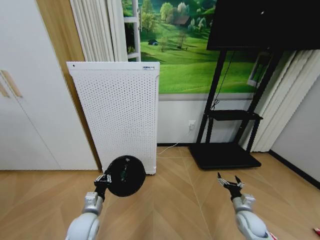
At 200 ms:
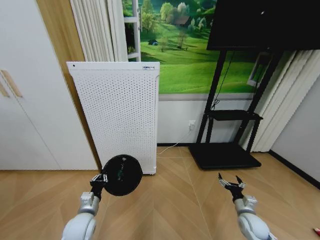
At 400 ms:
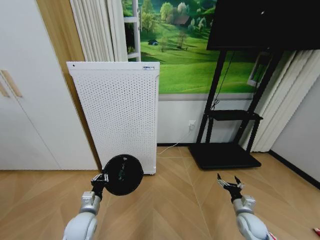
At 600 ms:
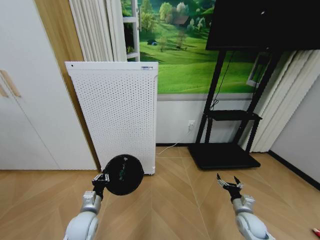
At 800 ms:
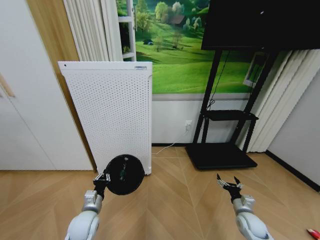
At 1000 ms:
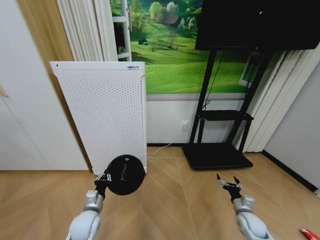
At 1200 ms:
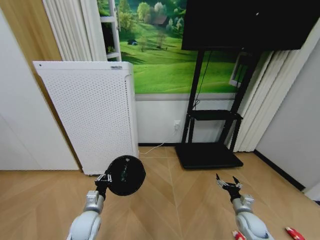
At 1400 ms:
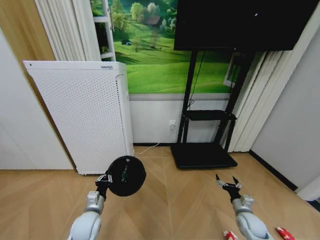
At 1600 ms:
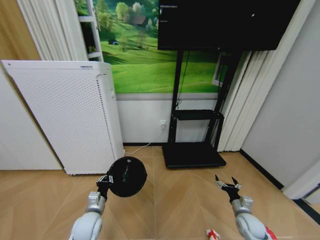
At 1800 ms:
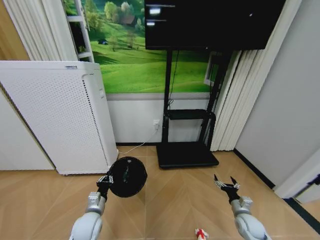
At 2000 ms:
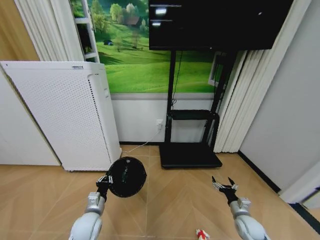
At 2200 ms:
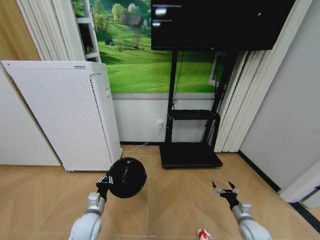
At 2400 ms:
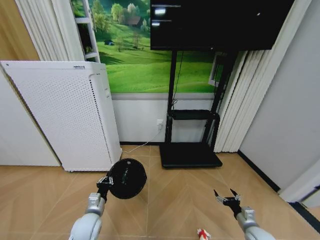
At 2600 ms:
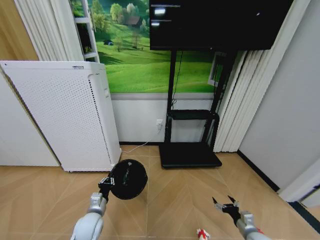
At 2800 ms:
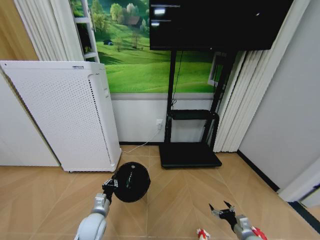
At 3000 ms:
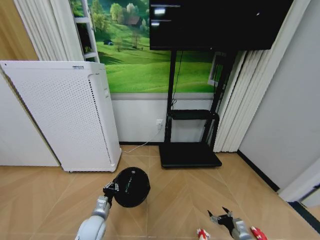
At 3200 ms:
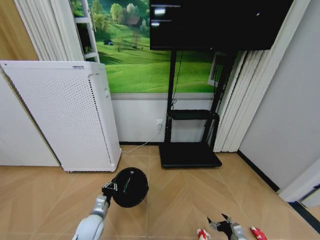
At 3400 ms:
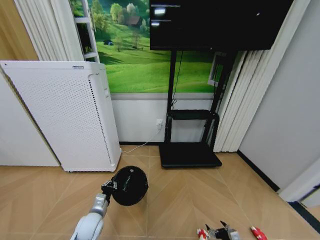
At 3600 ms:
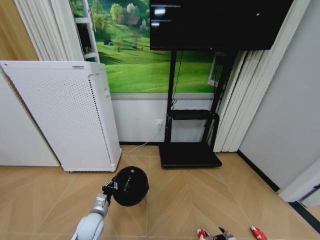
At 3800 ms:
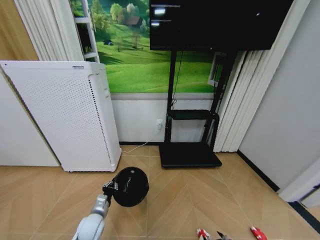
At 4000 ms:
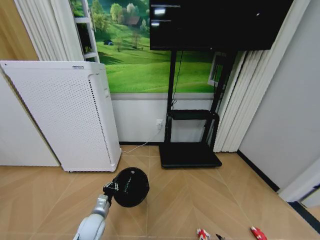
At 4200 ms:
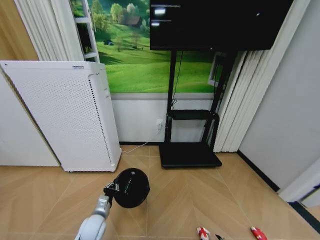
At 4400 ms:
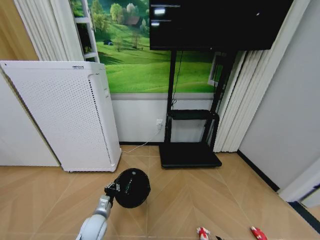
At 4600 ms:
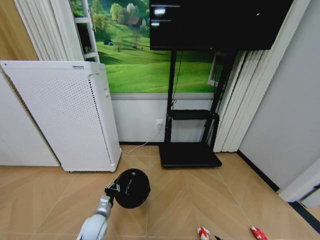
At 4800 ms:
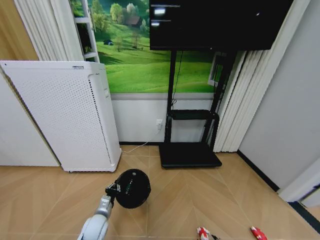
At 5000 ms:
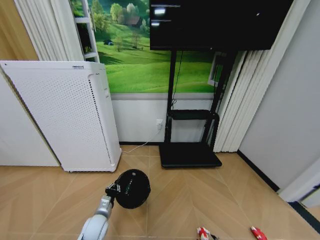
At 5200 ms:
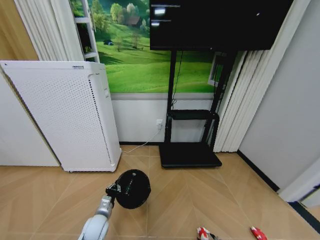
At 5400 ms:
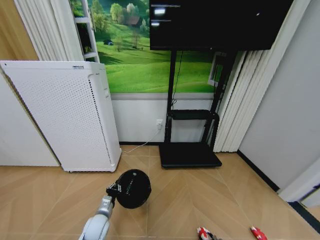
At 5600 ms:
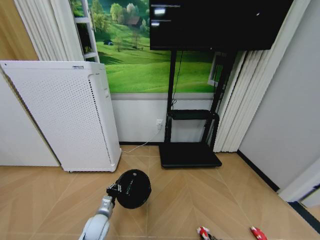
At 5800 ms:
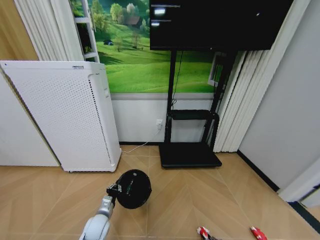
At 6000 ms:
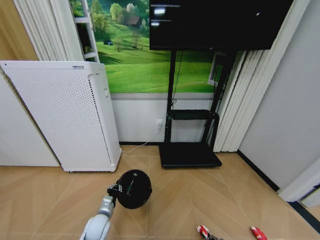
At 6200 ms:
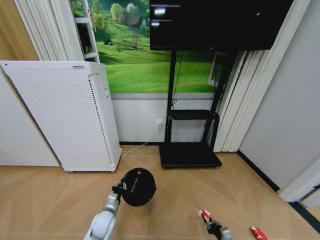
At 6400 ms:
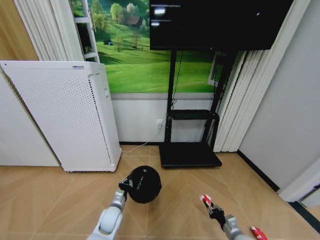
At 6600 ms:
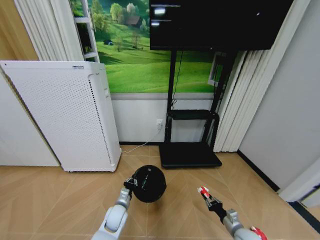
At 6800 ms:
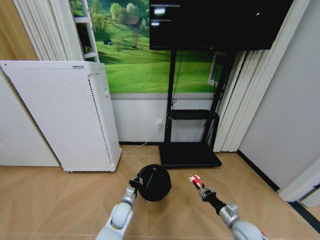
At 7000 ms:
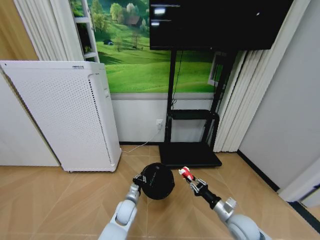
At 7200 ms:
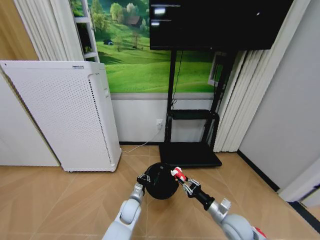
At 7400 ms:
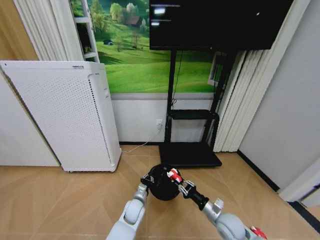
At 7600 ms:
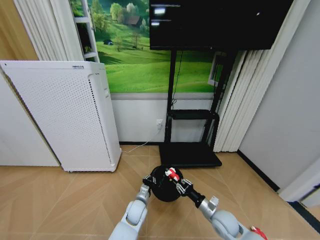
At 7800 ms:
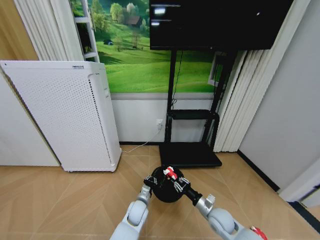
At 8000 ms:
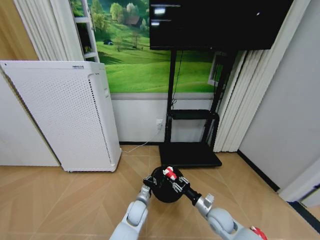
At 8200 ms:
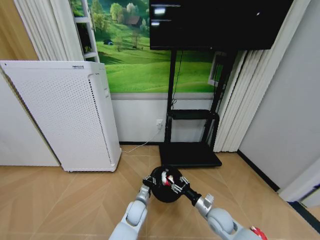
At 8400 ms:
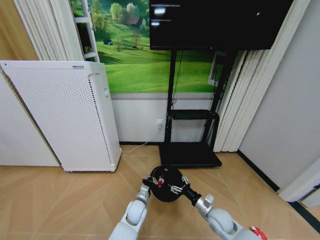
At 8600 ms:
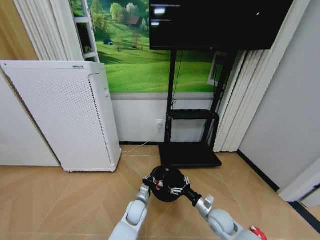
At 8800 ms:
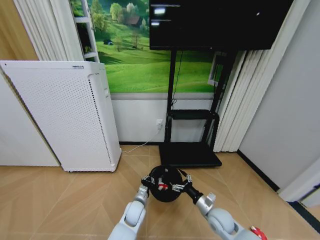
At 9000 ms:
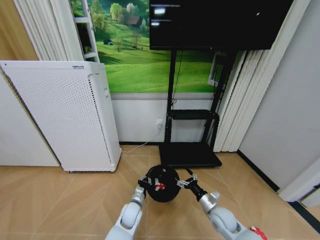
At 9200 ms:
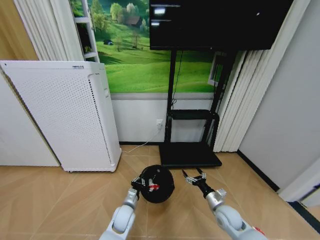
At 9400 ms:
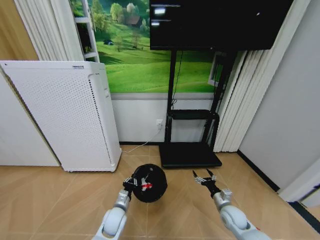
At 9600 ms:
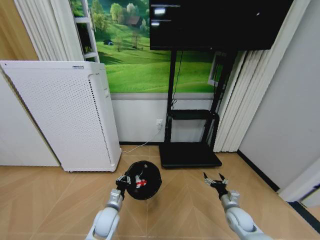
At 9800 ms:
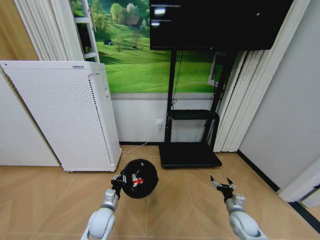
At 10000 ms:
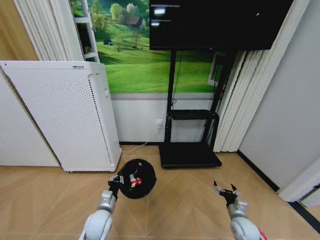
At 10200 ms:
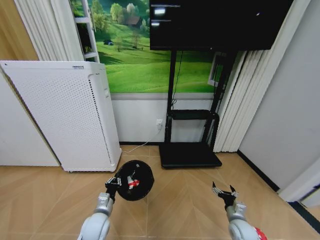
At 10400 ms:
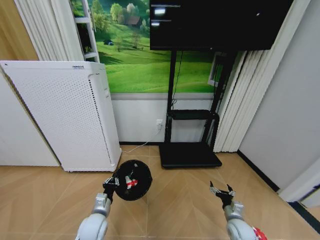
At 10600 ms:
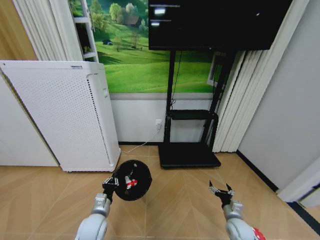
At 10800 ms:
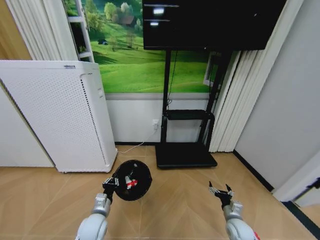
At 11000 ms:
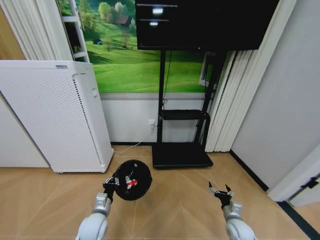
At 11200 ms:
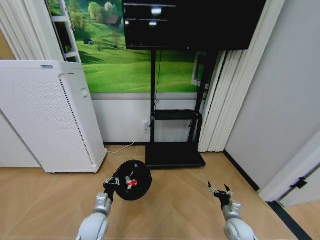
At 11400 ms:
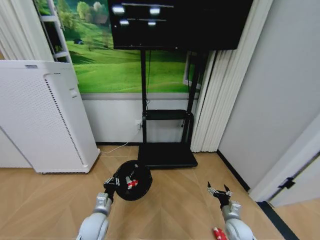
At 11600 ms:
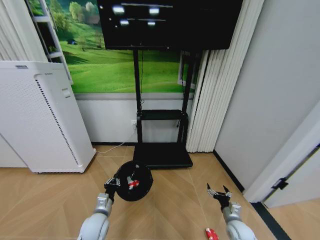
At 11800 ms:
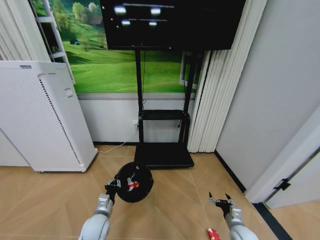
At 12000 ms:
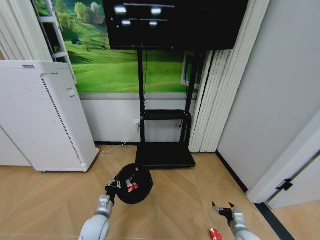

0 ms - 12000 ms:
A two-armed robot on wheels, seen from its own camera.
Task of the whole recording: Pick up the trash bin and place the garbage on the floor into it.
1600 ms - 3000 ms: The right gripper goes some 10 cm backward and downward.
3000 ms - 4400 ms: The right gripper goes roughly 10 cm downward and backward.
4400 ms - 6000 ms: The right gripper closes up.
6000 ms - 7600 ms: The left gripper goes about 15 cm to the right; the right gripper travels upward and forward by some 20 cm.
7600 ms - 9000 ms: The right gripper opens its fingers.
9000 ms - 10400 ms: The left gripper moves to the left, backward and upward, approximately 15 cm. The right gripper travels to the right and downward by some 10 cm.
10400 ms - 12000 ms: The right gripper changes place by roughly 5 cm.

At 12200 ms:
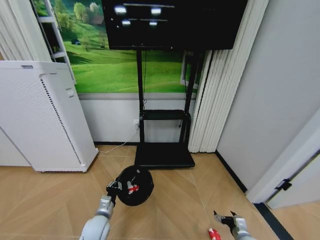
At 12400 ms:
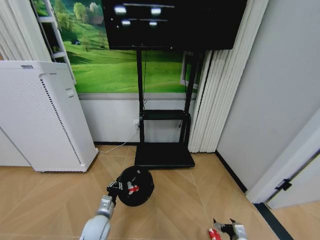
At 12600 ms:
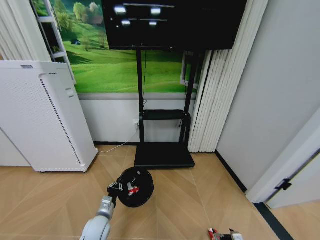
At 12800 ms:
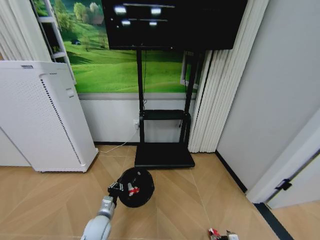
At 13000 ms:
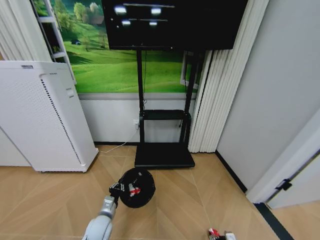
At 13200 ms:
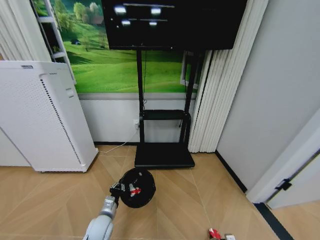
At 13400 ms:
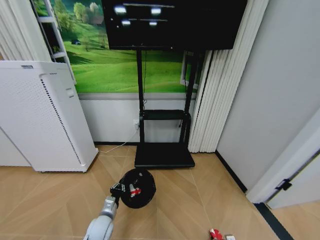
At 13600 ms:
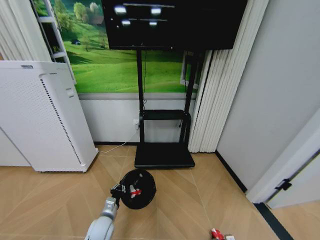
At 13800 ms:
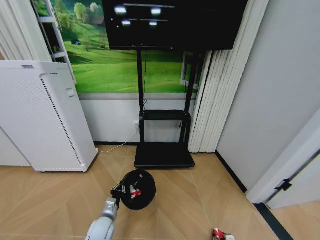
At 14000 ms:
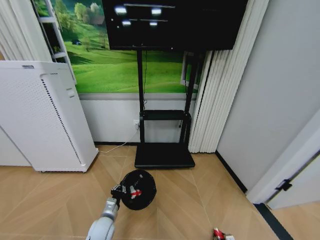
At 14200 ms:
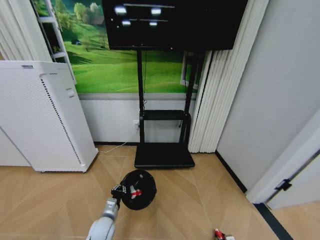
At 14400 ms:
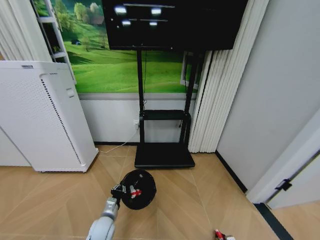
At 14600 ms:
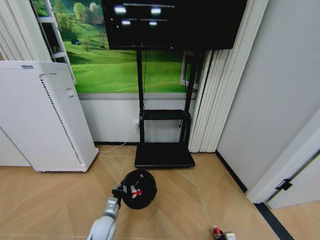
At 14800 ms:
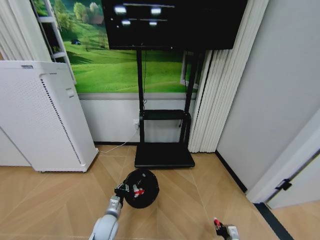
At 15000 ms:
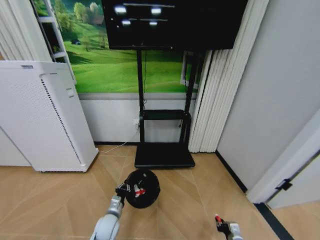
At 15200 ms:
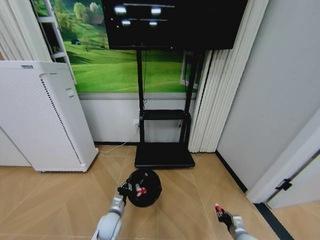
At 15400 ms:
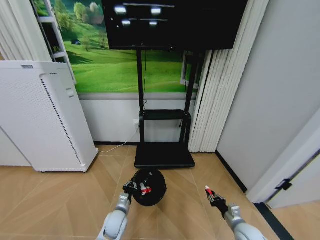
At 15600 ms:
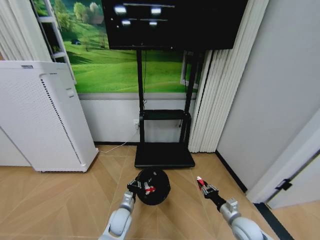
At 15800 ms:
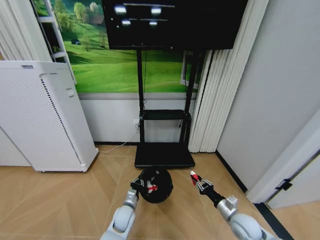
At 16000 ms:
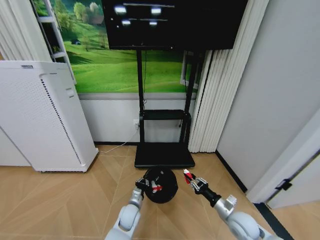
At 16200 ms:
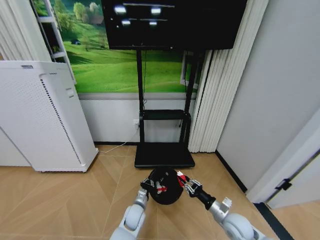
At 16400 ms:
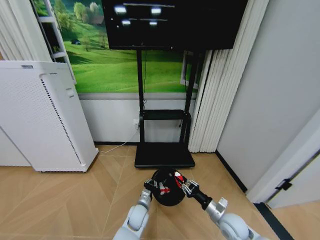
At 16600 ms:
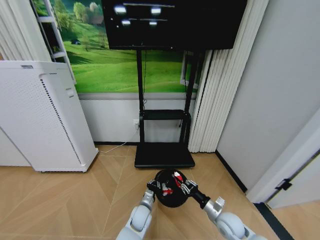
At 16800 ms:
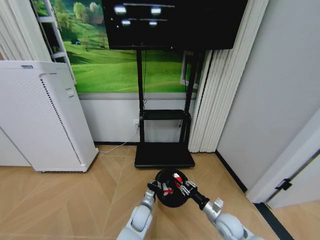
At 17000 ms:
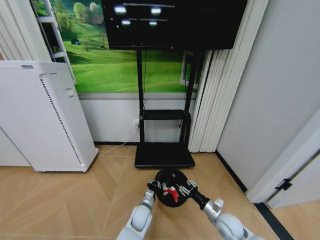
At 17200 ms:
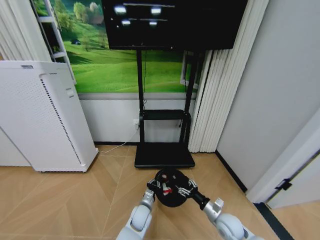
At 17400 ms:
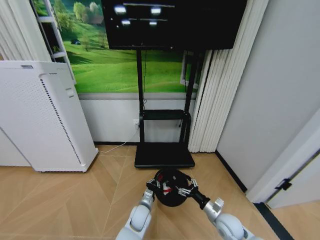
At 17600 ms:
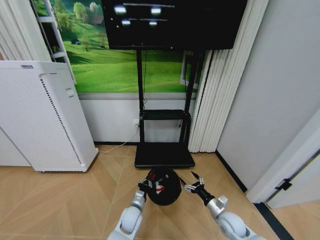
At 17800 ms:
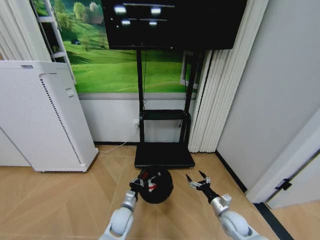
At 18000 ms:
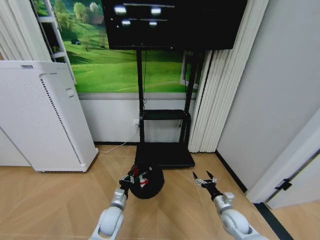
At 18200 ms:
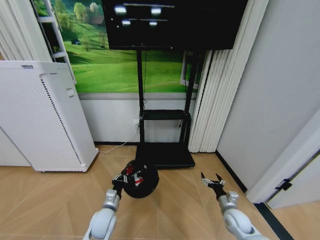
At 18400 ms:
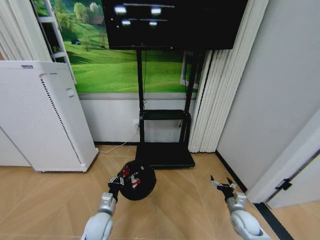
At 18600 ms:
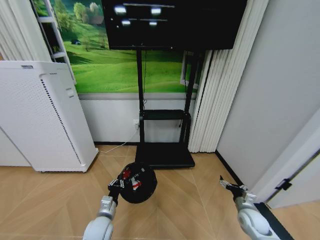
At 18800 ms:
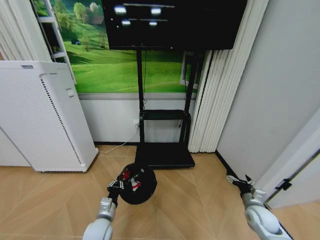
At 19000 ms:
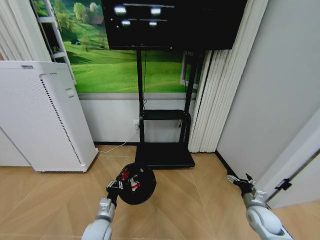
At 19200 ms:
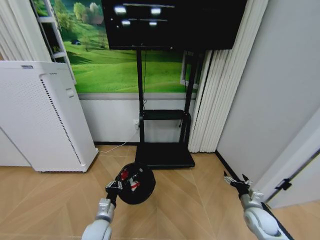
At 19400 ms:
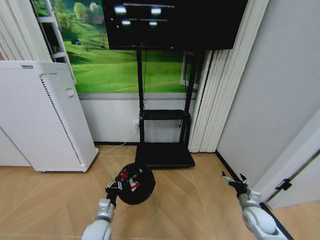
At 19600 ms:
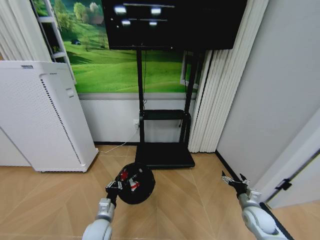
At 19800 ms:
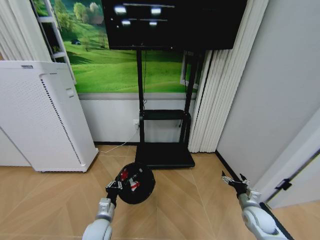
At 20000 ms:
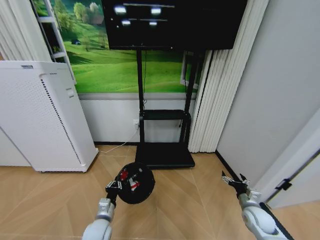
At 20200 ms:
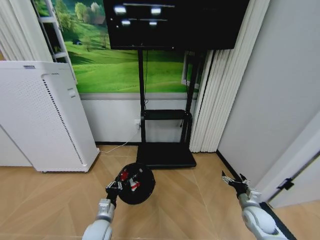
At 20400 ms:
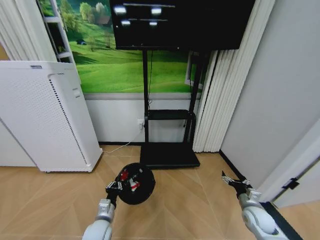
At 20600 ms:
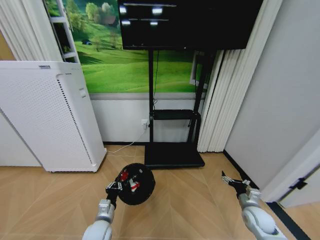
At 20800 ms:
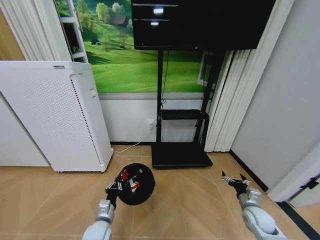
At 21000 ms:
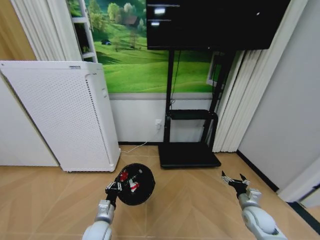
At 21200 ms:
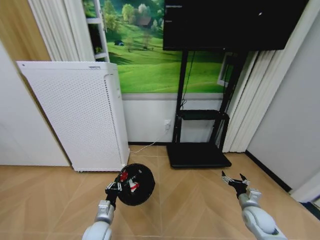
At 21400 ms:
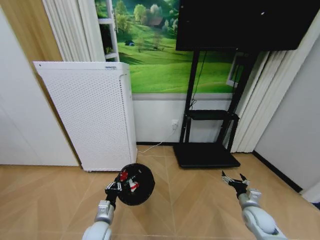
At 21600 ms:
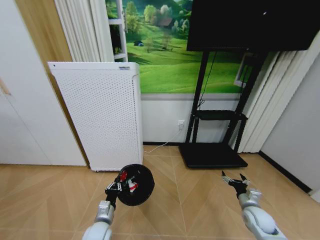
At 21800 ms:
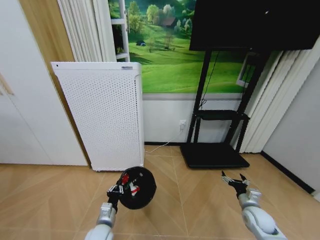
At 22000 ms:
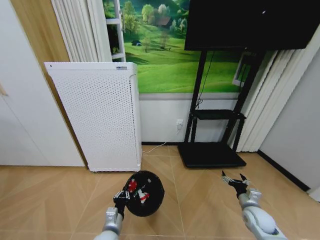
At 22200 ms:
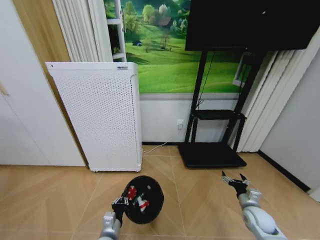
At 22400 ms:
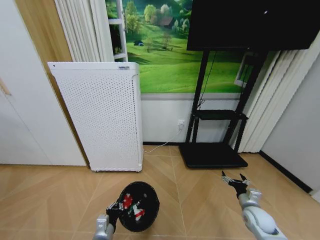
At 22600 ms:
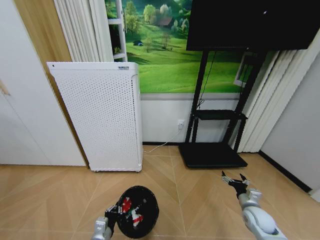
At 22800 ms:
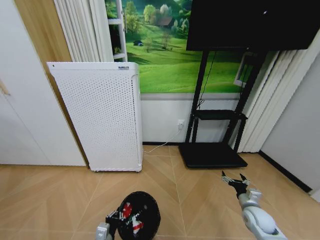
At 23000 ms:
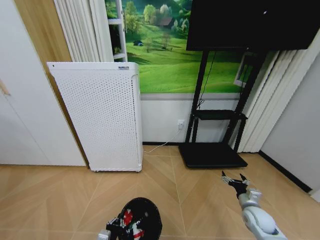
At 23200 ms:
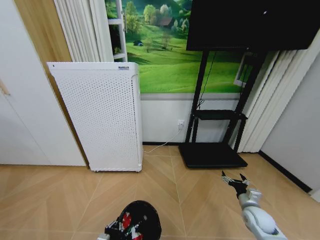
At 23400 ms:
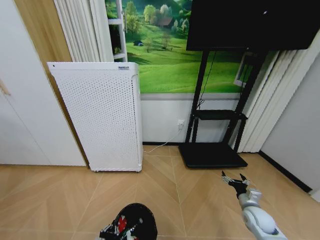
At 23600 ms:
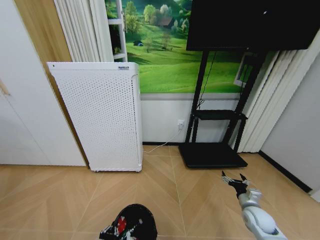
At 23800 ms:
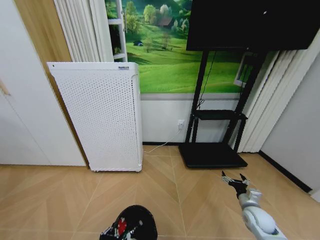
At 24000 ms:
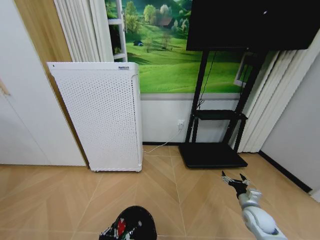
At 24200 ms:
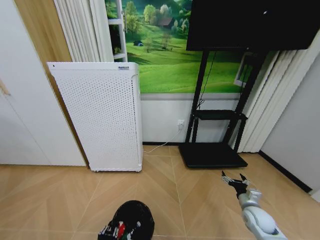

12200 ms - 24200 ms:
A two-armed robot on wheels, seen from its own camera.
Task of the whole recording: Pick up the trash bin and place the garbage on the floor into it.
12200 ms - 13800 ms: The right gripper moves downward, about 10 cm, and closes.
13800 ms - 15200 ms: The right gripper heads upward, covering some 10 cm, and closes.
15200 ms - 16600 ms: The left gripper moves to the right, approximately 15 cm. Meanwhile the right gripper moves to the left, upward and forward, about 15 cm.
16600 ms - 18200 ms: The left gripper is displaced to the left and upward by roughly 15 cm; the right gripper shifts approximately 5 cm to the right, and opens.
18200 ms - 19800 ms: The right gripper is displaced to the right by roughly 5 cm.
21200 ms - 22600 ms: The left gripper travels backward by some 5 cm.
22600 ms - 24200 ms: The left gripper shifts some 5 cm backward.
